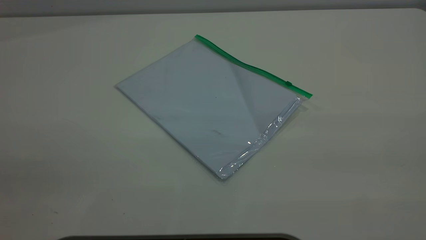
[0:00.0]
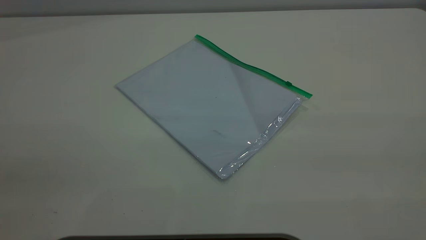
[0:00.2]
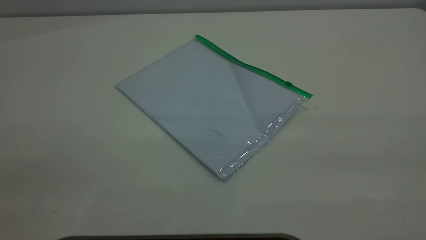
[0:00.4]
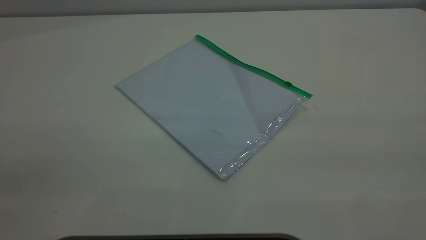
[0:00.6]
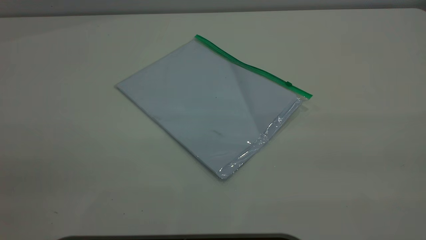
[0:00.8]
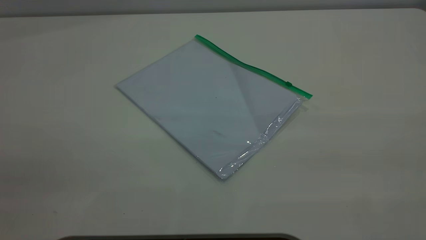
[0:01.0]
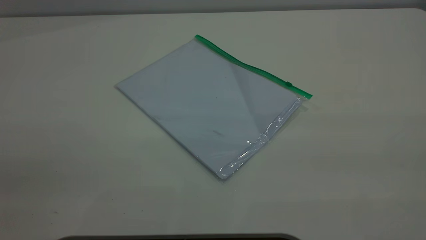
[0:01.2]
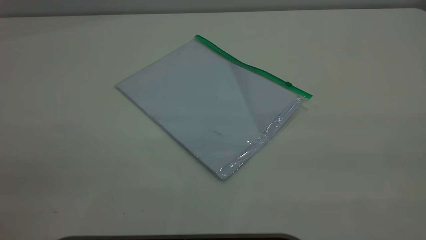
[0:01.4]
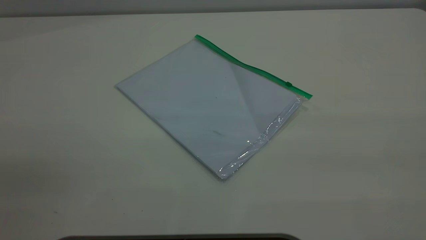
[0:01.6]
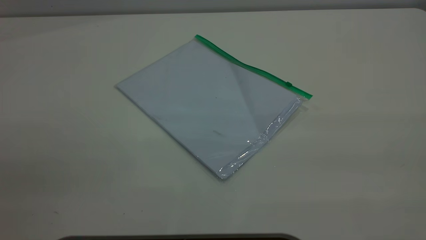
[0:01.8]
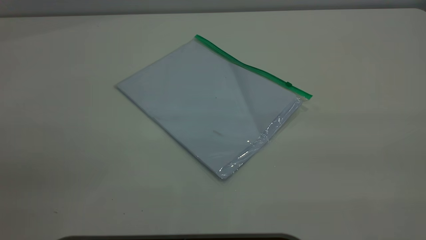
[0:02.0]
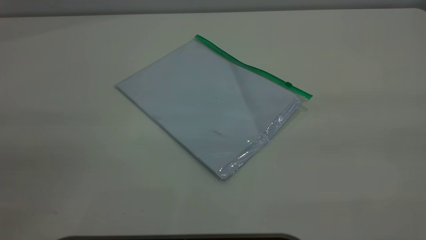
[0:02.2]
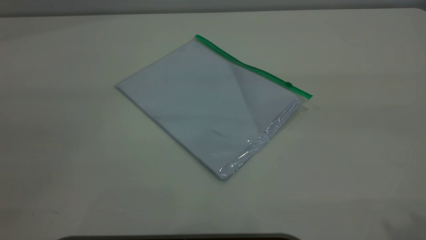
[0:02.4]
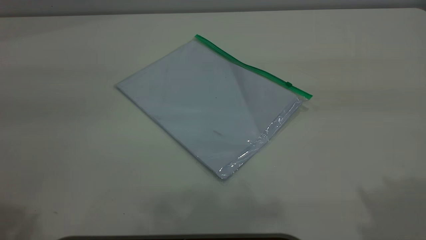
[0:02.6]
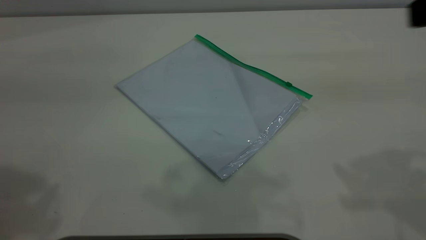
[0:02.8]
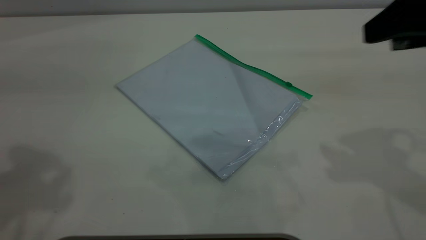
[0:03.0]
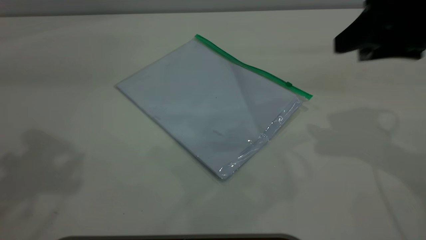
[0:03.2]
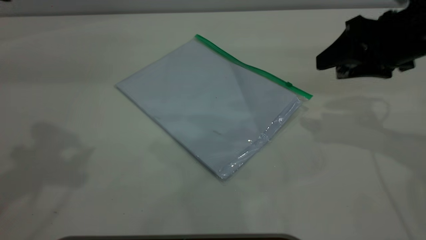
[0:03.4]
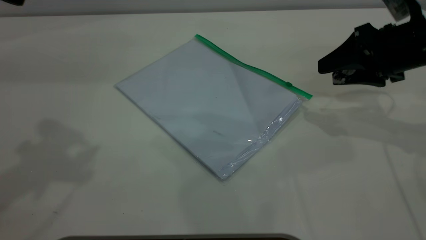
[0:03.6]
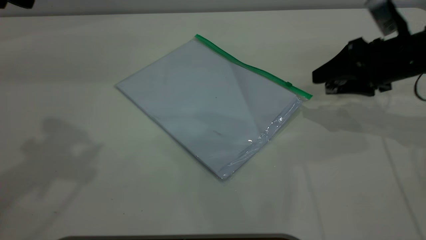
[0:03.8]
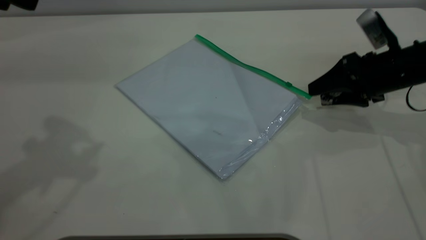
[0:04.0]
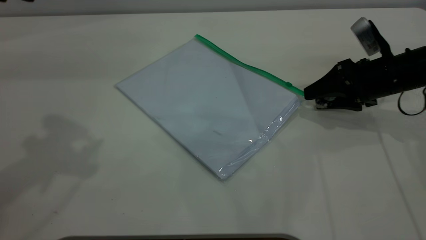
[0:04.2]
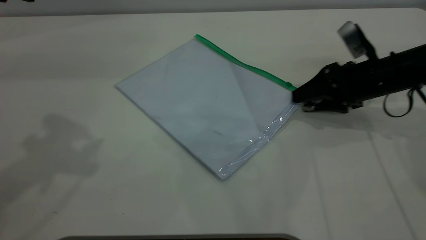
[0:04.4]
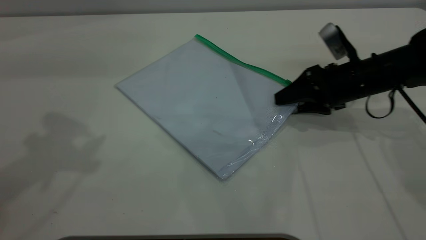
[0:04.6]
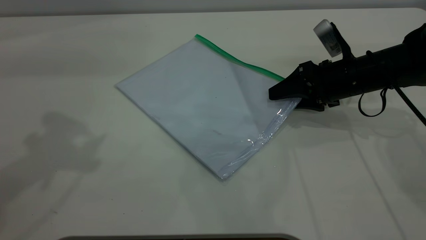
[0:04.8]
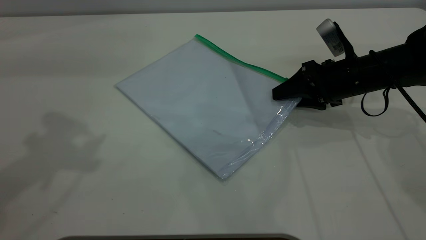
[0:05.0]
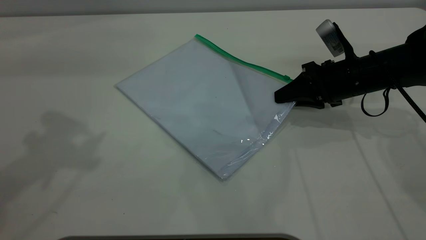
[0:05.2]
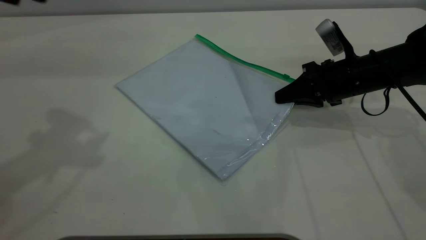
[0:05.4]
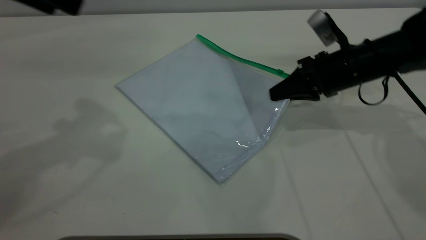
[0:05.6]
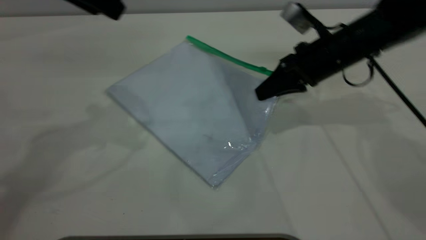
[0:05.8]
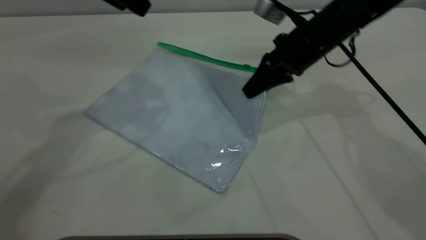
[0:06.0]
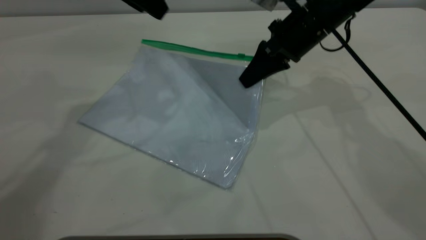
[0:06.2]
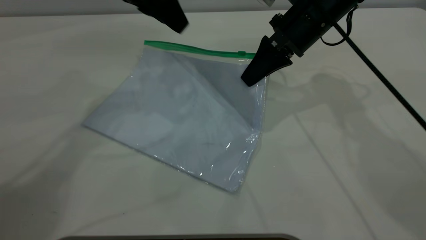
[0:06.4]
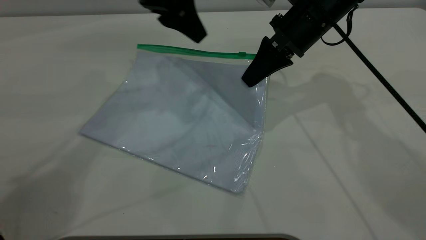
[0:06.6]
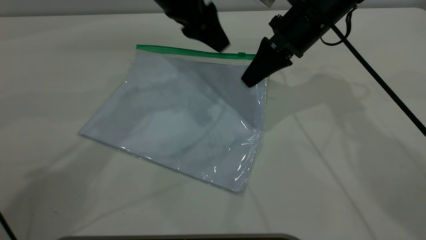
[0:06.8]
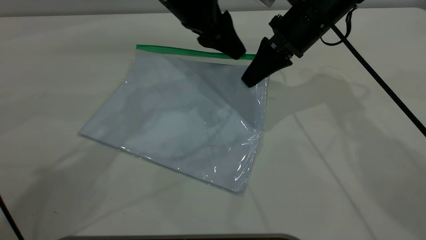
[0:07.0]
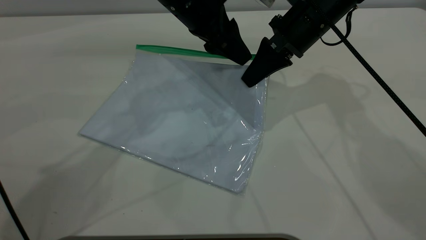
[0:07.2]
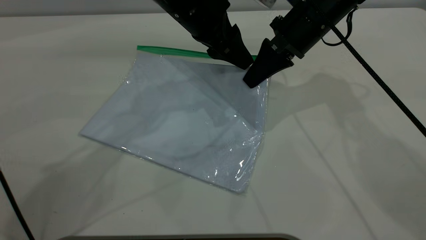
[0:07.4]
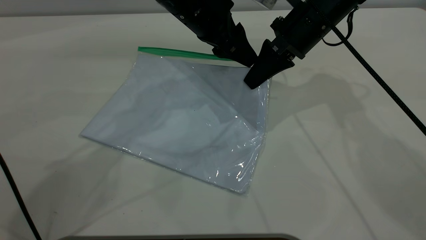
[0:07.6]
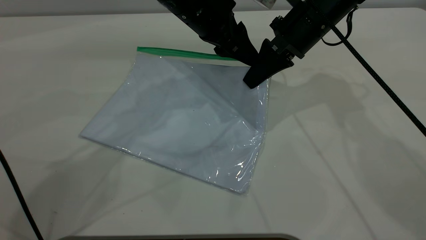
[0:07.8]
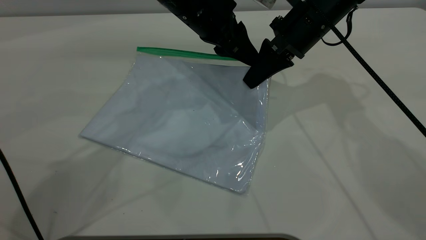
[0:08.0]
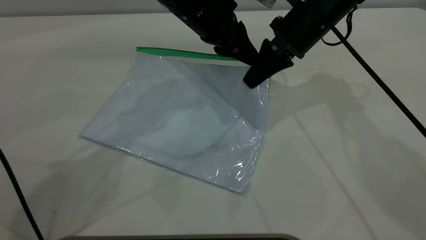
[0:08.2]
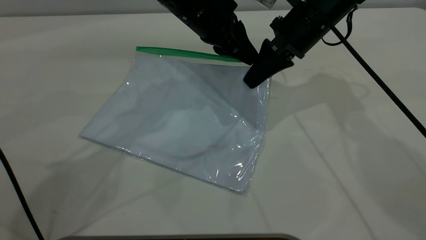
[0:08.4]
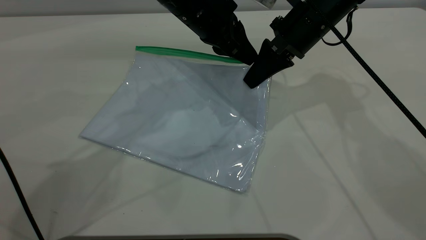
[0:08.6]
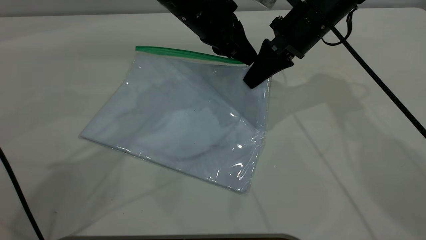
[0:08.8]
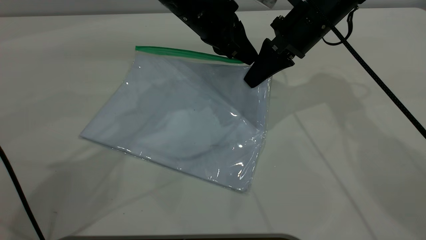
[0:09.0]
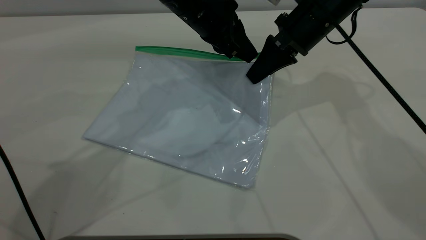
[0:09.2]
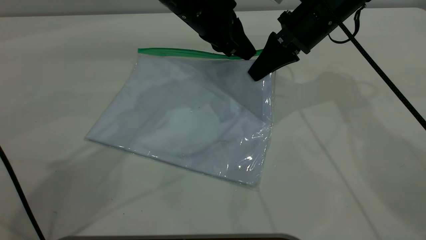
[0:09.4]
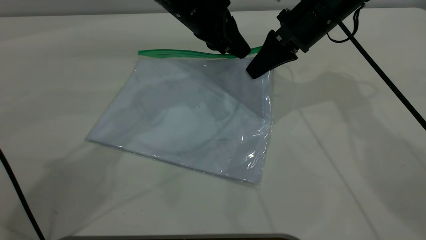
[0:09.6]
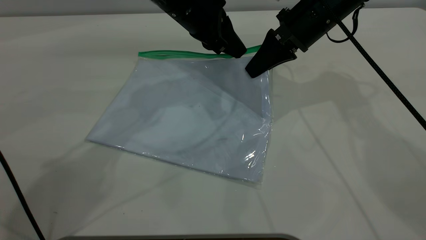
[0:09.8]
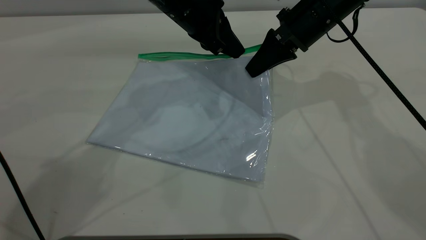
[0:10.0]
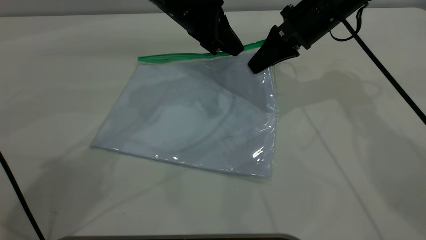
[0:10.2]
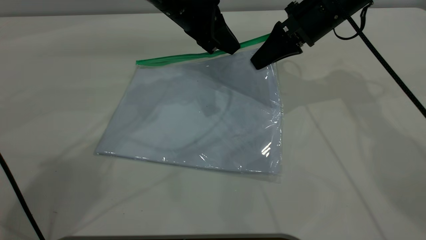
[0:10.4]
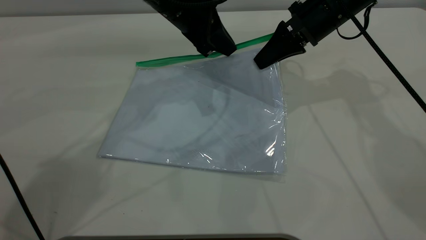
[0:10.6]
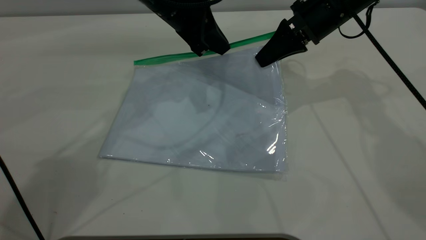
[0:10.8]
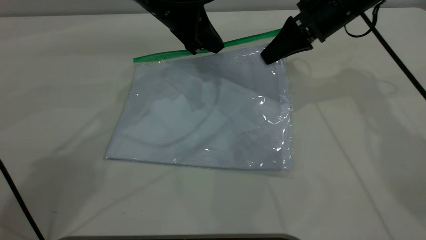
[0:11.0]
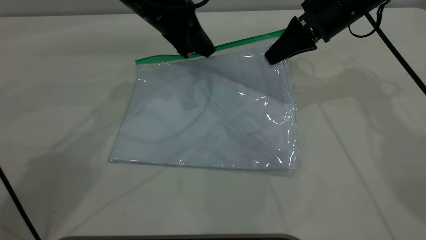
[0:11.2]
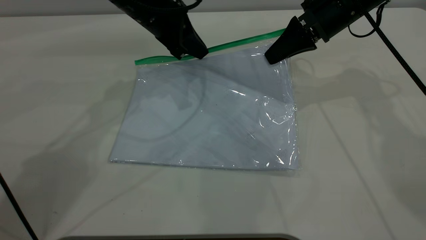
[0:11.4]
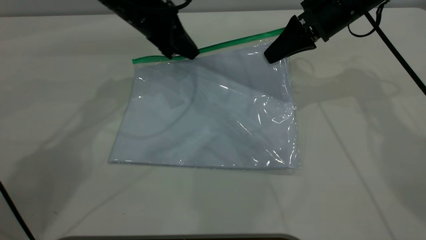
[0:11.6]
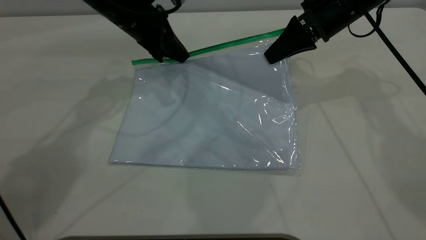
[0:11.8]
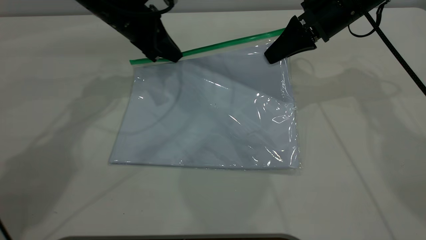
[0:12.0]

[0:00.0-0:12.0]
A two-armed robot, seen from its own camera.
Step, 0:00.0 to 0:06.4: Pick up the transparent plastic bag with the right gripper.
0:00.0 to 0:01.6: Both grippers stay put.
0:01.6 to 0:03.0: The right gripper goes about 30 cm forward and downward.
0:03.0 to 0:04.4: The right gripper goes roughly 25 cm downward and forward.
0:04.4 to 0:06.0: The right gripper moves to the left and upward, some 15 cm, and closes. The left gripper goes about 15 cm forward, to the right and downward.
0:06.0 to 0:07.6: The left gripper shifts about 15 cm to the right and downward.
0:07.6 to 0:09.0: The left gripper closes up.
0:09.0 to 0:10.4: There are only small adjustments of the grippers.
0:10.4 to 0:12.0: The left gripper goes some 10 cm to the left.

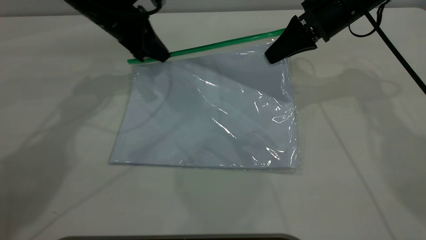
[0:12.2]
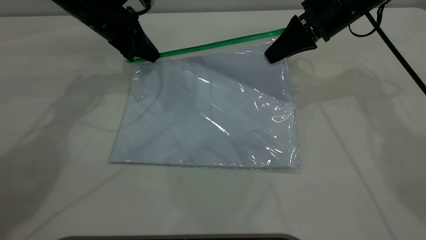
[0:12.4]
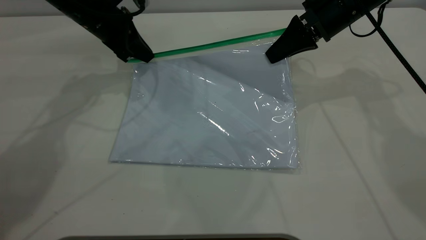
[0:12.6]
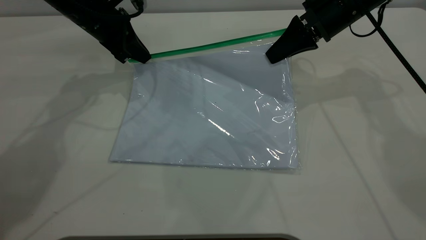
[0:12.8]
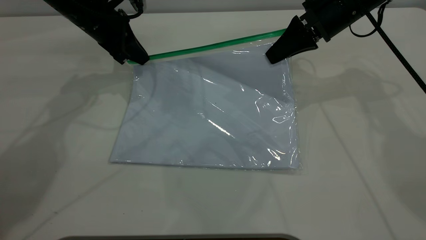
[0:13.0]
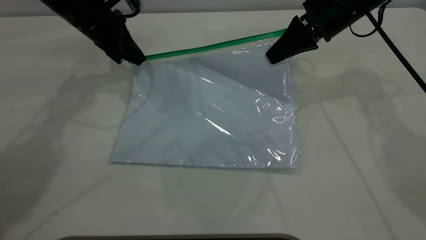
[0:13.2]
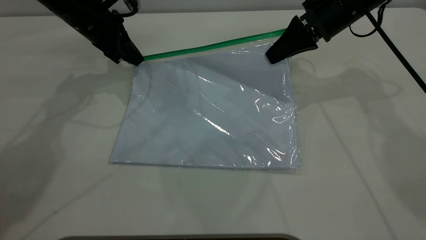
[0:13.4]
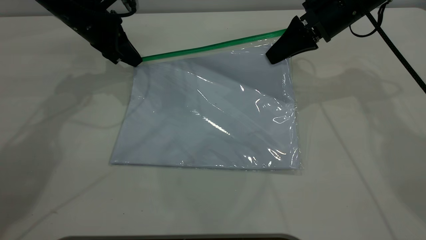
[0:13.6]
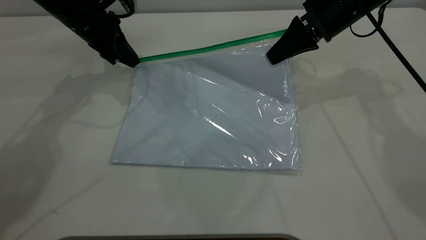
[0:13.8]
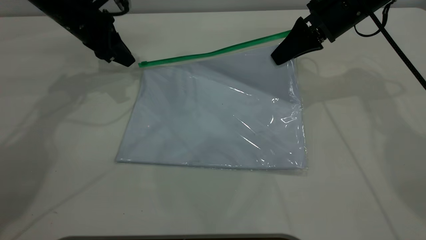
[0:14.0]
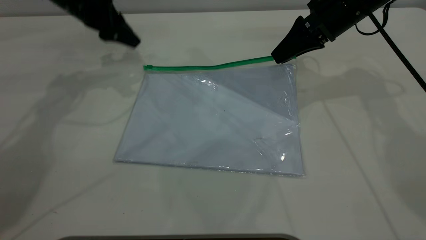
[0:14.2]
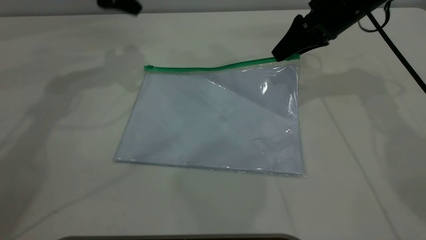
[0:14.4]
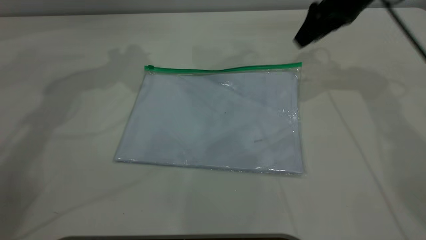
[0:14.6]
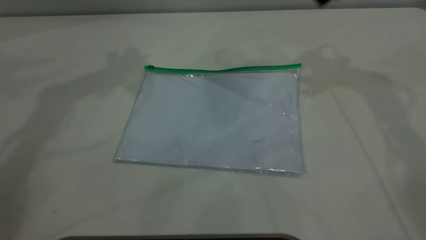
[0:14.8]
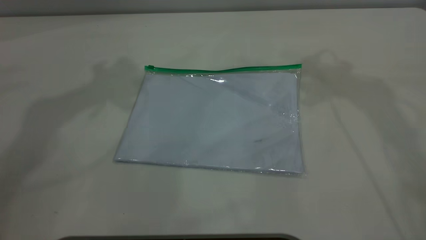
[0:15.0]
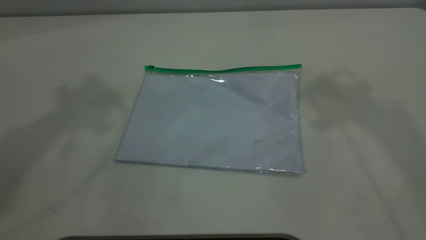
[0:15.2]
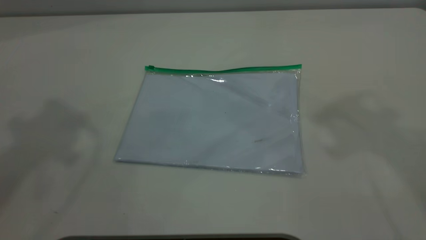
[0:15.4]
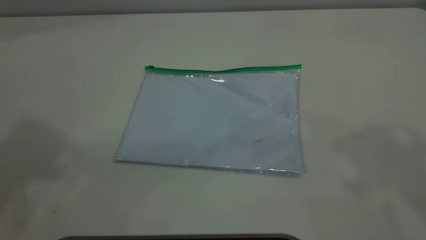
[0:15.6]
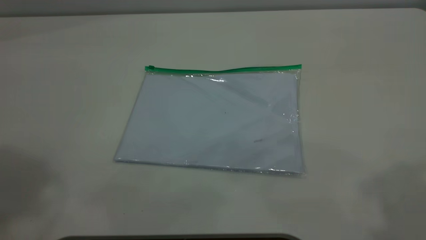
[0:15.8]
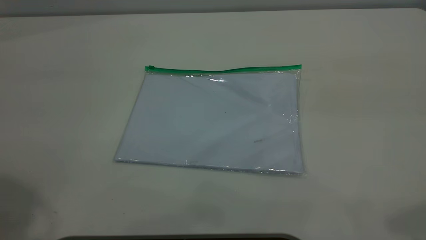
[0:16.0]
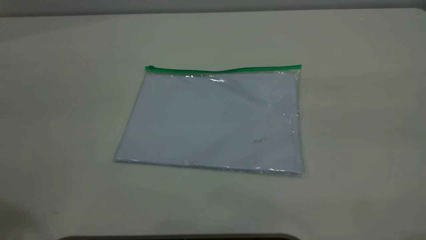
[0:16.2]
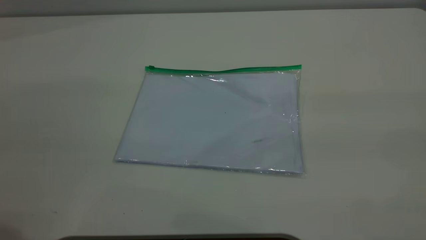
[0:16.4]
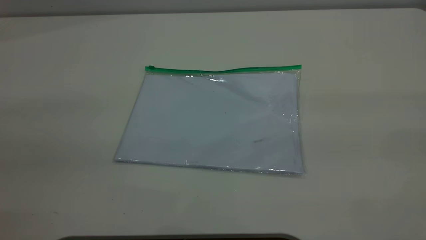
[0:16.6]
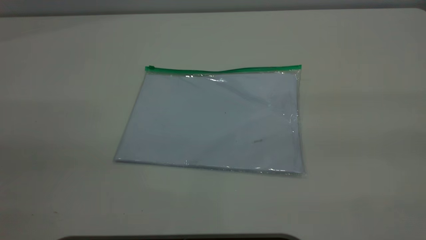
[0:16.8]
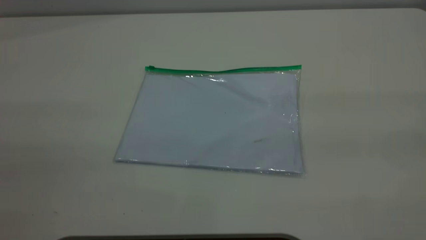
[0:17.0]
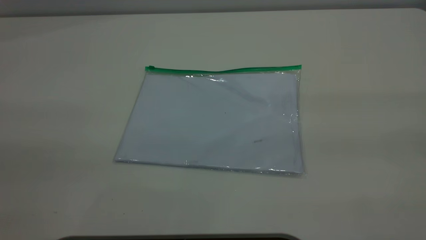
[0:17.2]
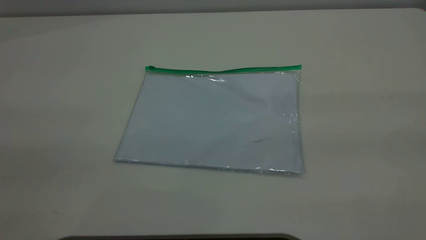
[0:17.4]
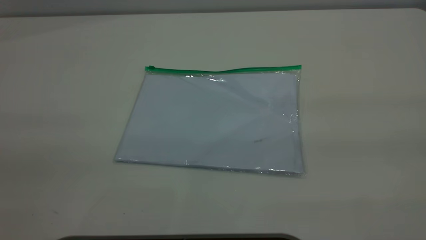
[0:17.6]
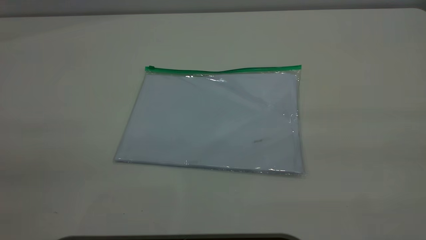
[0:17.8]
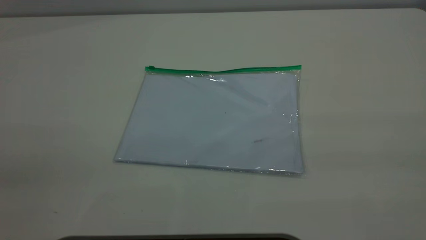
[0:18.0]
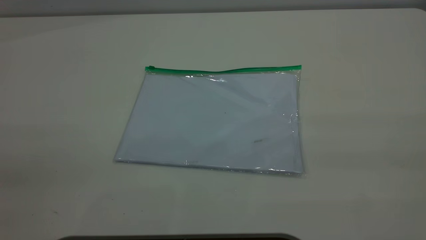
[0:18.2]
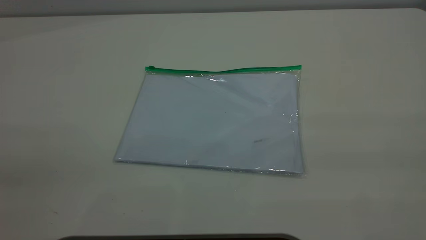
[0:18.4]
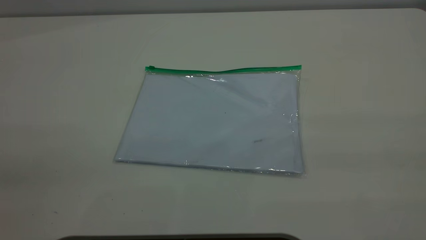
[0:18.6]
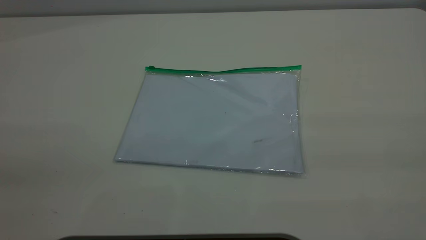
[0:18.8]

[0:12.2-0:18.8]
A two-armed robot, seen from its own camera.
Step, 0:14.0 to 0:15.2: Place the transparent plastic bag.
0:12.2 to 0:13.8: There are only small adjustments of the grippers.
0:13.8 to 0:15.4: The two grippers go some 40 cm upward and backward. The left gripper opens up. Meanwhile the right gripper opens.
